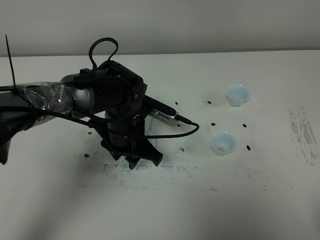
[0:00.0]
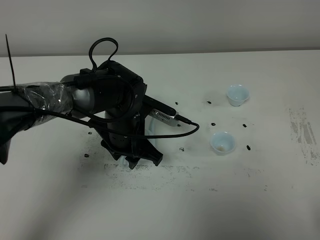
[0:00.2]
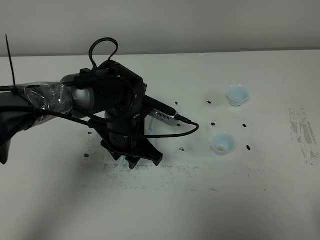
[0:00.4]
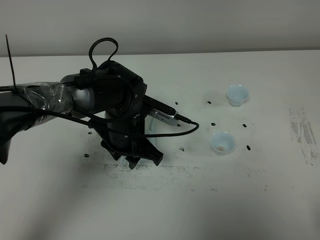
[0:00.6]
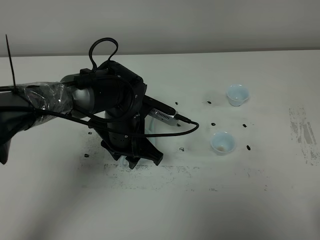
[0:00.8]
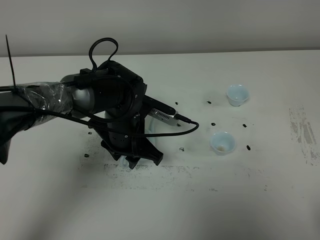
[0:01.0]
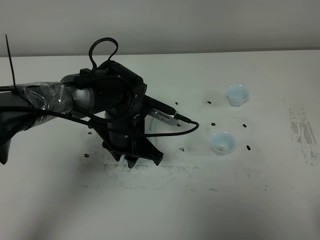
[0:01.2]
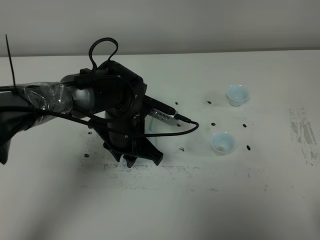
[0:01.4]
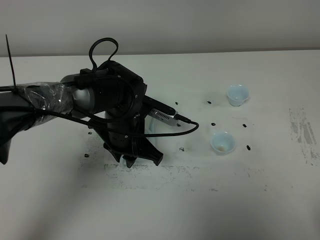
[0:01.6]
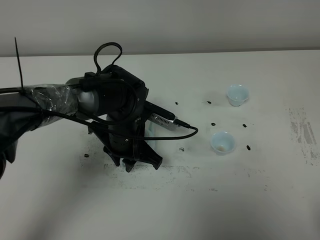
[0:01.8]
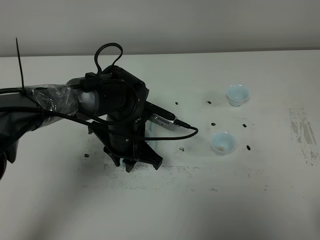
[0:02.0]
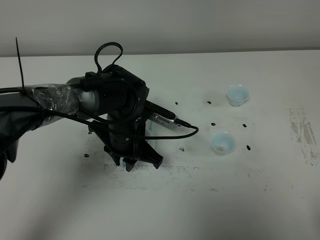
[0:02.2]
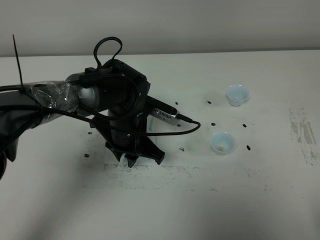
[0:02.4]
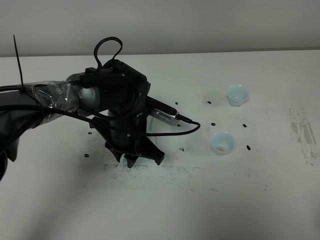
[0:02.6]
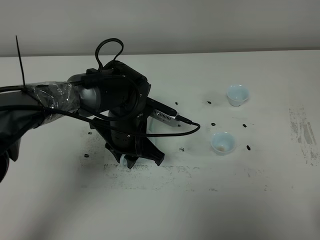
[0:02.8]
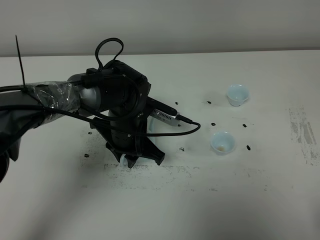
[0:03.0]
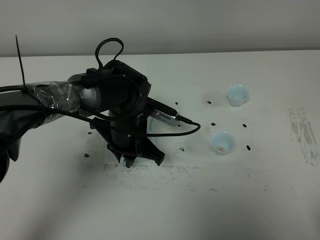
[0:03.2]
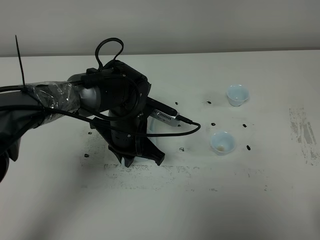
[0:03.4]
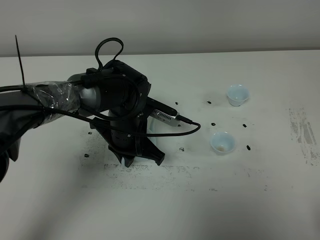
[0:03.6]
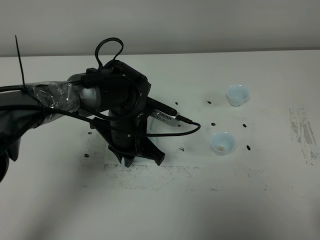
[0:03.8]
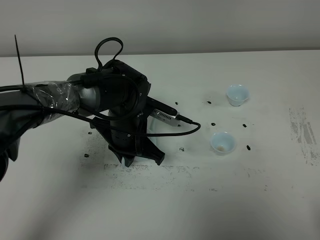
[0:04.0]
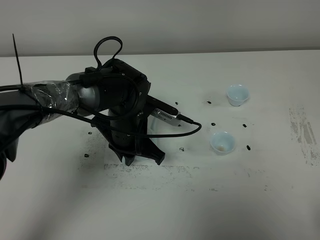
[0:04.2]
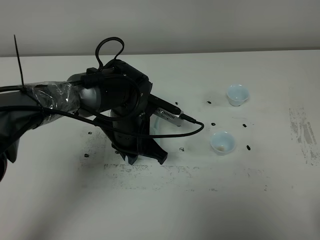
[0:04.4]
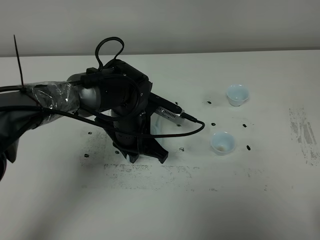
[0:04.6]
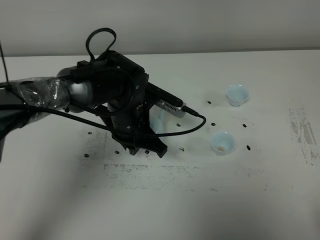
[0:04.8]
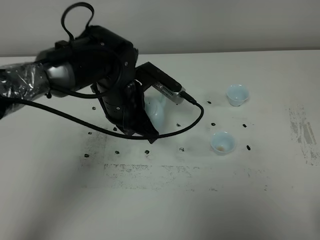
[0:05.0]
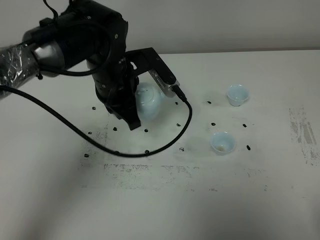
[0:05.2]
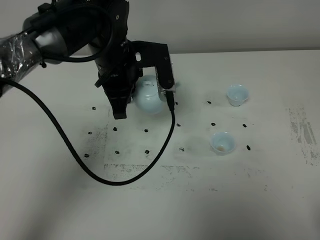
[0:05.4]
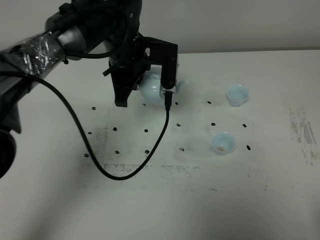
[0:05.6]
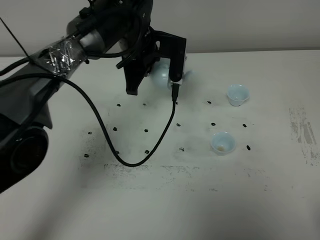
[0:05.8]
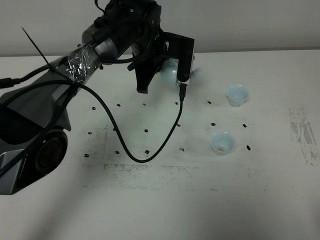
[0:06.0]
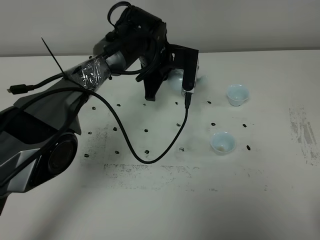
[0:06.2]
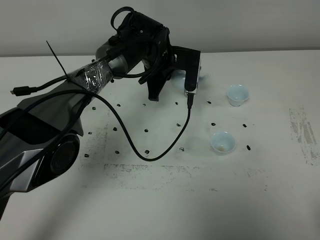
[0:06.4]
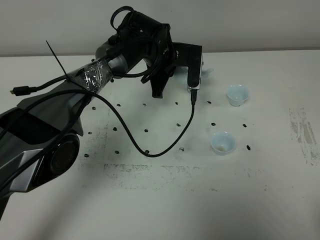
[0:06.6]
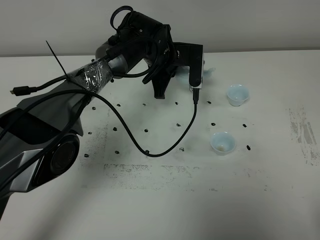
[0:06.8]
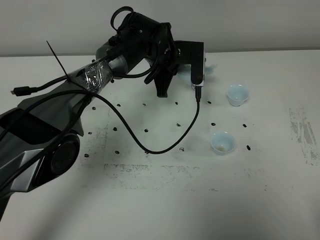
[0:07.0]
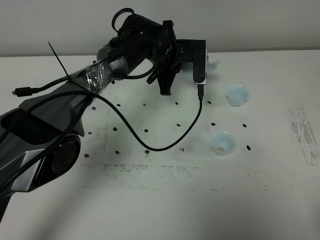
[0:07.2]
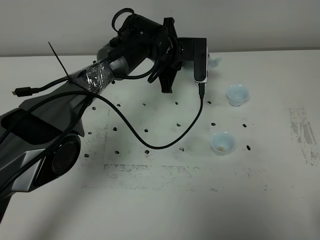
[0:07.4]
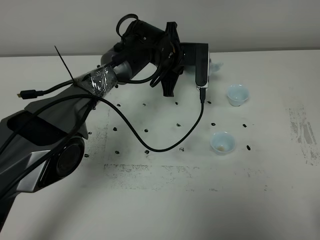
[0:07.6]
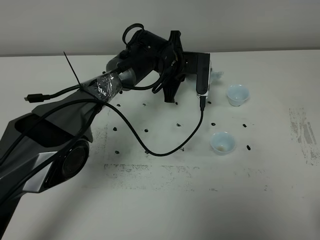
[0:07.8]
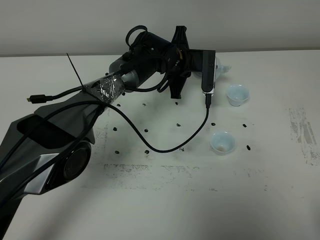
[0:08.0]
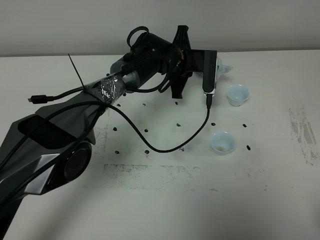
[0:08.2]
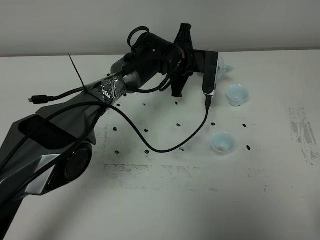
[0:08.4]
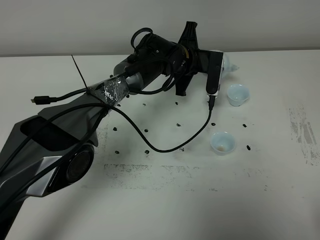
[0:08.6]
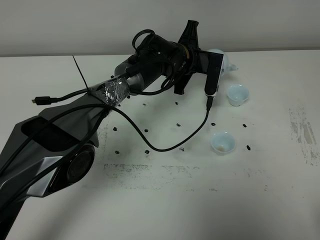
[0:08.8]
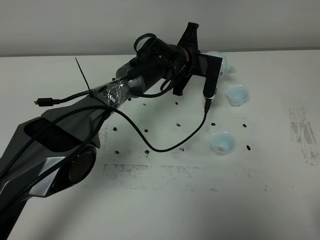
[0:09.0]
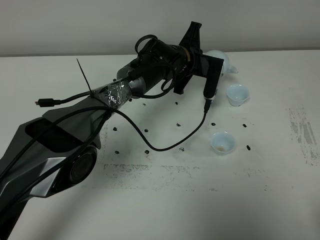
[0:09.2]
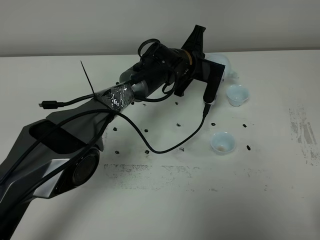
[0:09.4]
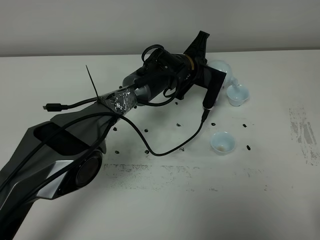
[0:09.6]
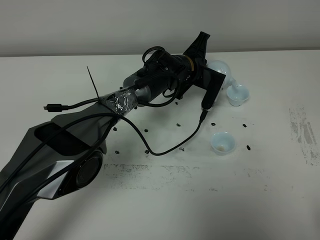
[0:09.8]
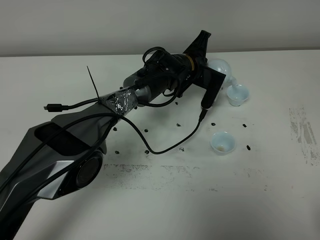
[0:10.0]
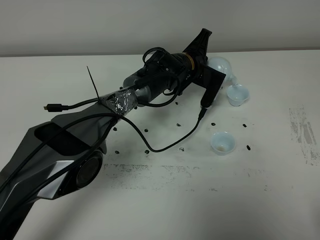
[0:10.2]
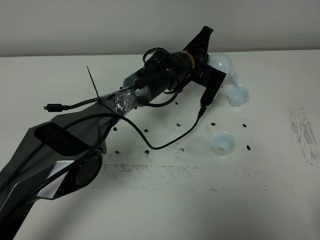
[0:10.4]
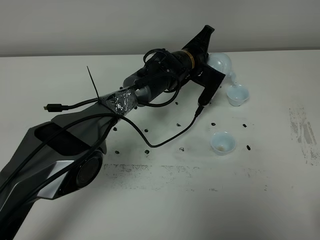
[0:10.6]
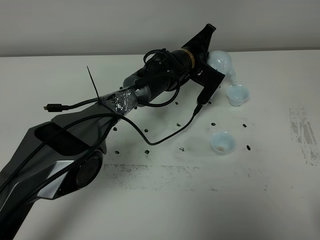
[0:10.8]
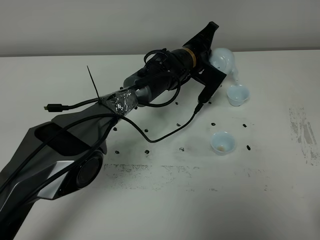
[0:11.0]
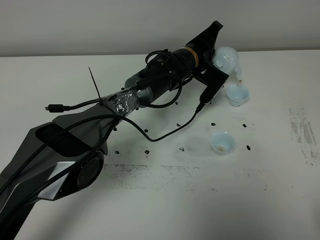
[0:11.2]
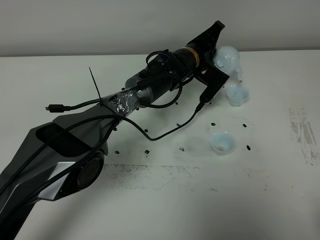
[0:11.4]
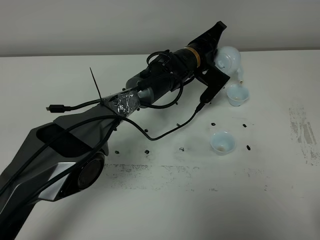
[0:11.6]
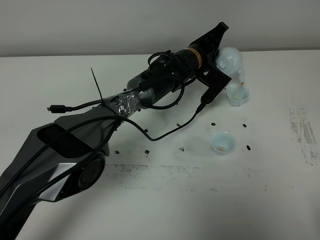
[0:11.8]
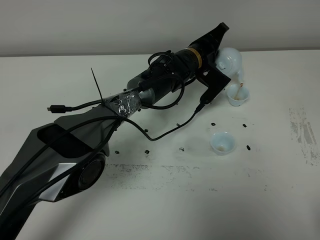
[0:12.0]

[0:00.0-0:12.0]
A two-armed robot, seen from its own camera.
Task of the whole recording: grasp the blue porcelain teapot and pour the tea into the two blue porcelain teacups one by one, put the blue porcelain teapot back in its original place.
Step, 0:00.0 to 0:04.8: Pick up the teapot with the left gripper.
0:00.0 to 0:04.4: The two grippers keep their place.
0:04.4 to 0:06.0: The left gripper shifts roughly 15 cm forward and upward.
0:06.0 to 0:07.6: The left gripper moves about 5 cm.
0:07.6 to 0:09.0: There are only small adjustments of the grippers.
0:09.0 to 0:10.4: The grippers make only small movements.
0:10.4 to 0:12.0: The grippers make only small movements.

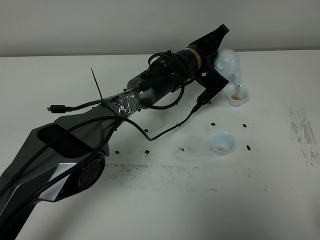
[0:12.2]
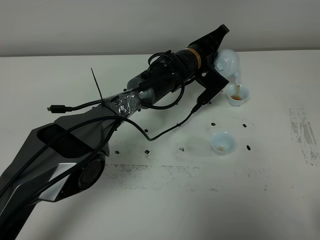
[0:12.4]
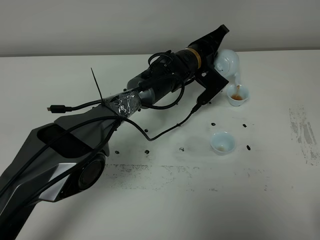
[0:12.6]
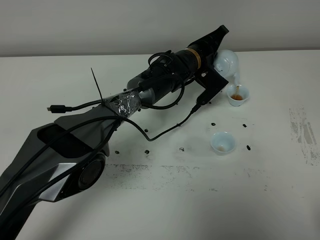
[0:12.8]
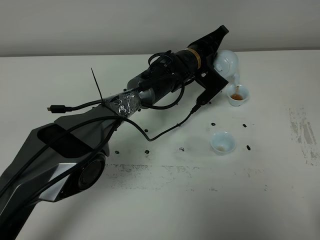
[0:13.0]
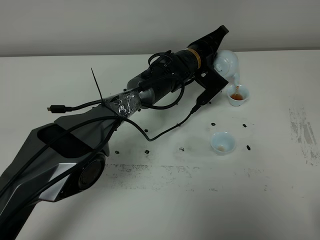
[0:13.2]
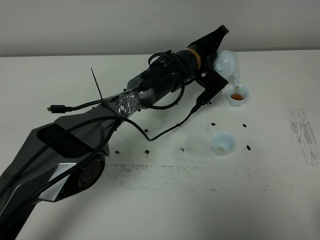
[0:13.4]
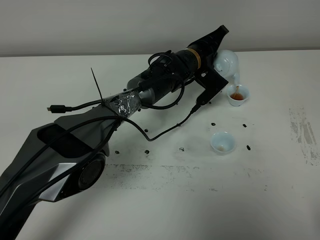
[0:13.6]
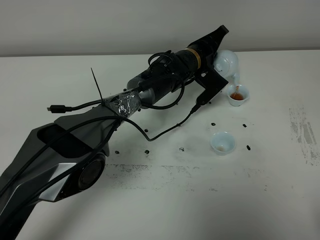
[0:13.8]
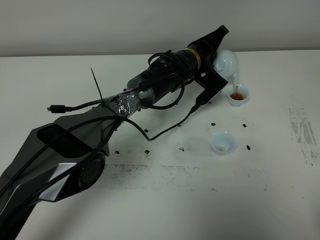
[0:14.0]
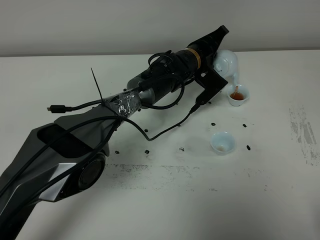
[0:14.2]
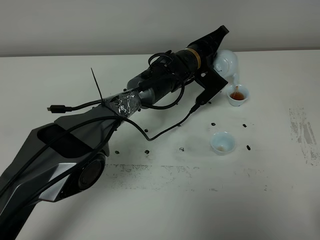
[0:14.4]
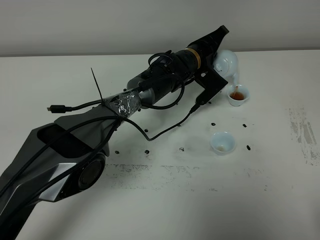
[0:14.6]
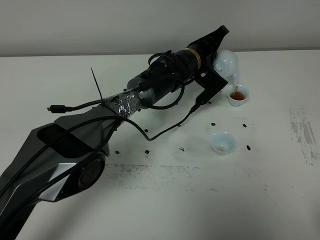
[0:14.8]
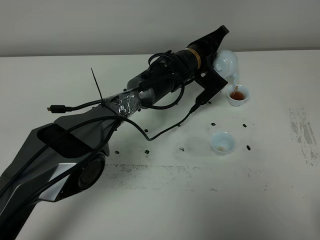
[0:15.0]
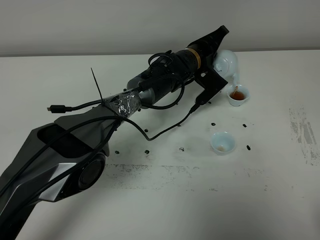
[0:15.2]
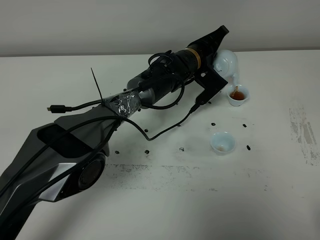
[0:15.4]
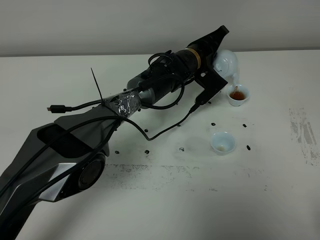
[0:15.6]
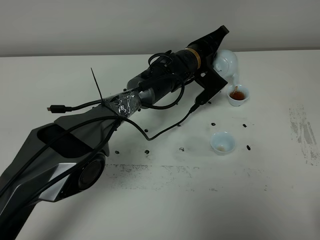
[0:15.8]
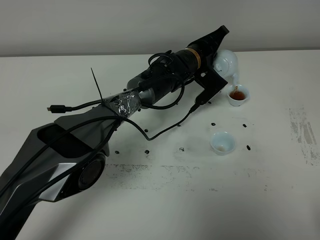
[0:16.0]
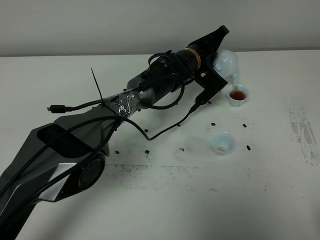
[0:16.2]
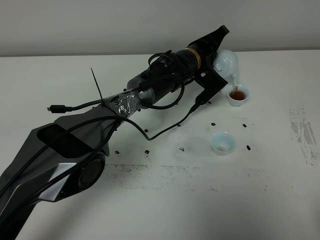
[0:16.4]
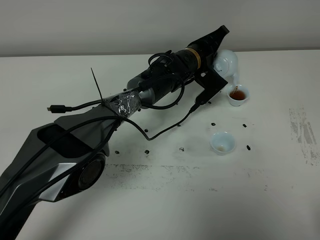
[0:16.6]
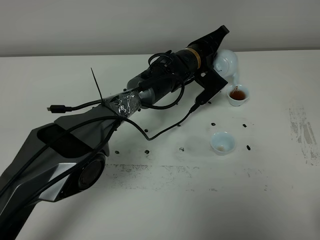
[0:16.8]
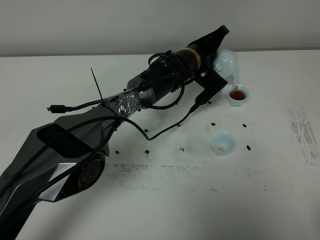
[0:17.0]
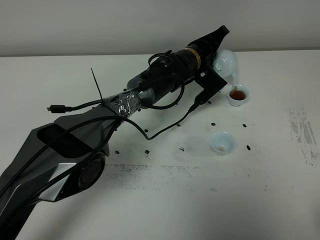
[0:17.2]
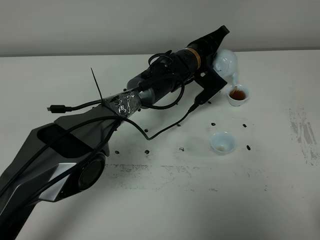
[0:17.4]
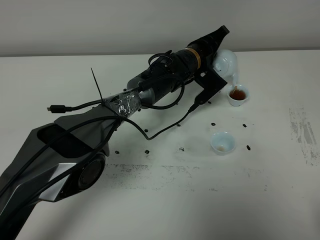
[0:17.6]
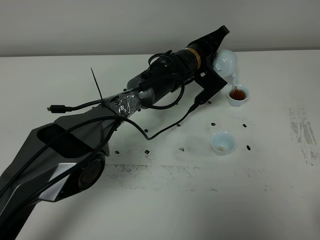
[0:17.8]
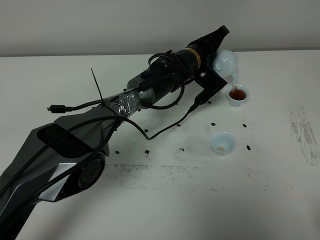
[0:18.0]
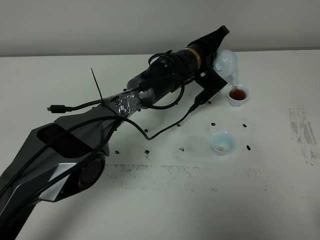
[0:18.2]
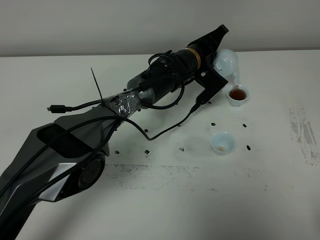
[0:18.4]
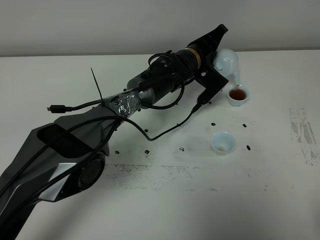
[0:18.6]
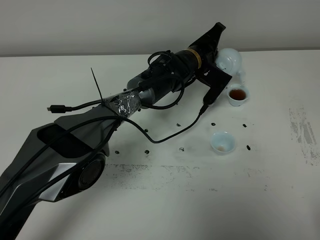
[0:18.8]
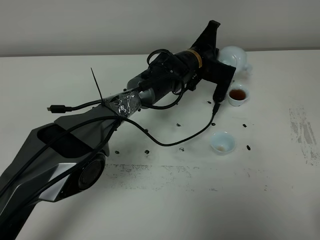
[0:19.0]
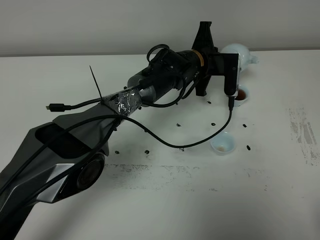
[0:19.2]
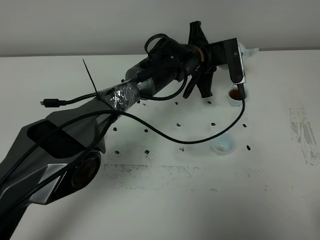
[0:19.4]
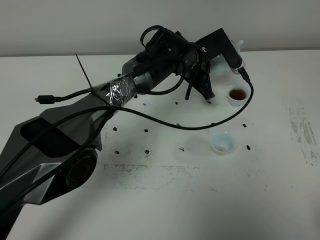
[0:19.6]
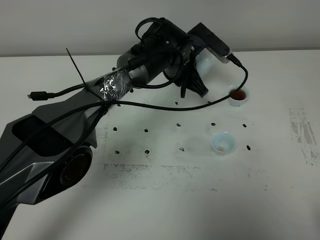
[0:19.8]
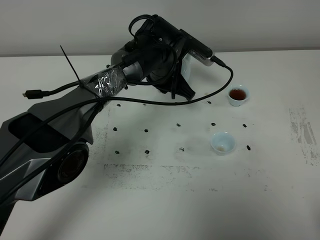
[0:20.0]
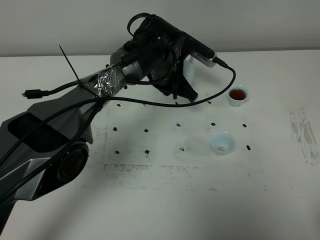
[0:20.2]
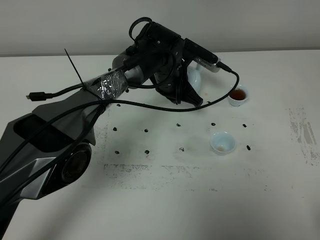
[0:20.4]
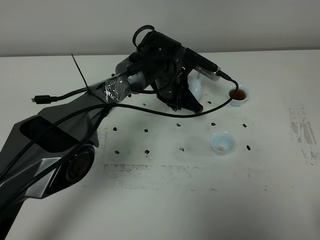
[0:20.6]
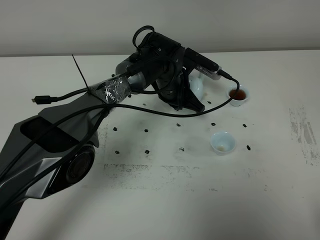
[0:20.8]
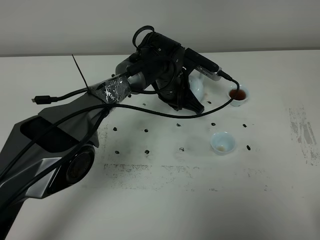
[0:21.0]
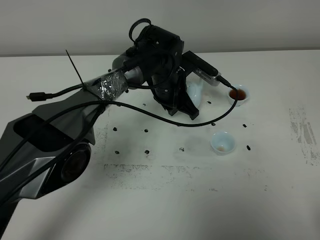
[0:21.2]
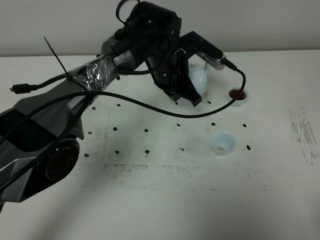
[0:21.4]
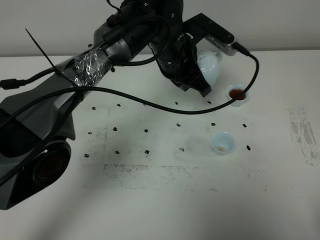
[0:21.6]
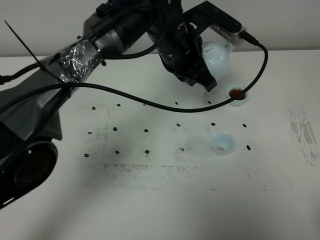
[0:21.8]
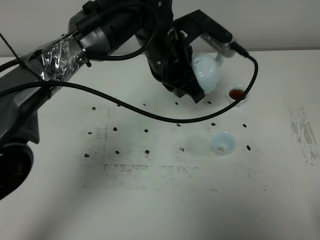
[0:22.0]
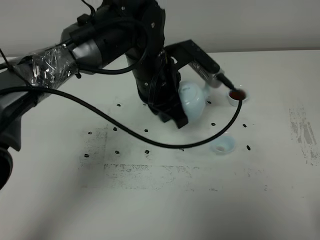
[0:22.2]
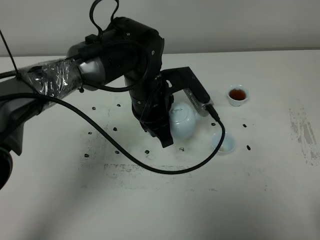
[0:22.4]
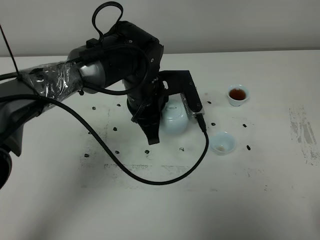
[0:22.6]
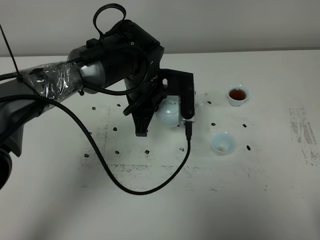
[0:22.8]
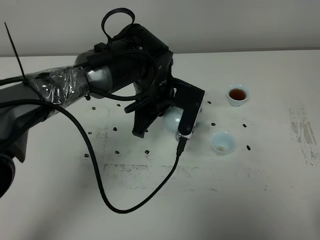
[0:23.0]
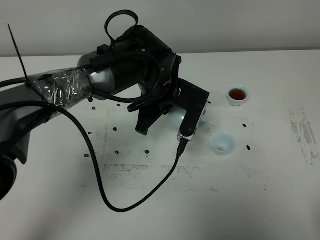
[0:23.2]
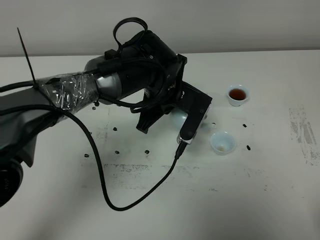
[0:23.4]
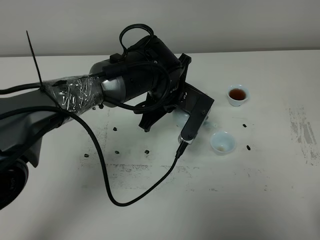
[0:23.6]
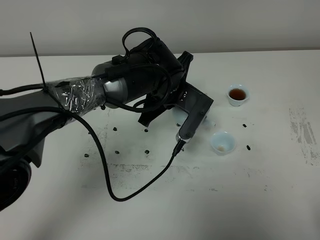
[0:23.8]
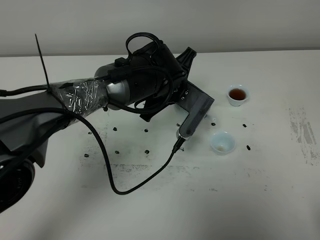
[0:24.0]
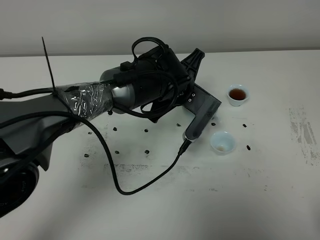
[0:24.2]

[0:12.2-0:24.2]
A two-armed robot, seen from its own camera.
Task of the whole recording: grasp the blue porcelain teapot and pour the tea into the two blue porcelain teacups one by one, put the blue porcelain teapot back in its original place.
Step, 0:12.2 to 0:19.0: Pour tea into the teacup with the left gripper.
0:12.2 to 0:18.2: The two grippers keep their place.
0:18.2 to 0:19.8: The left gripper shifts by some 5 cm.
0:19.8 to 0:21.2: The grippers move only a little.
0:21.2 to 0:22.6: The left gripper travels backward by about 5 cm.
0:22.6 to 0:24.2: The left gripper shifts some 5 cm to the right.
